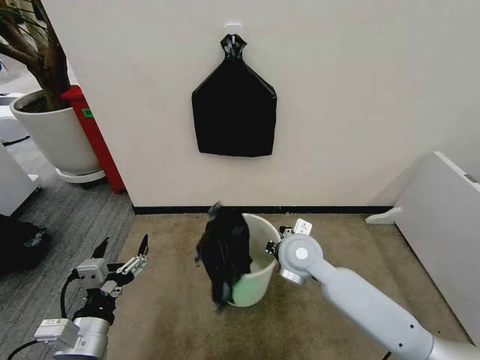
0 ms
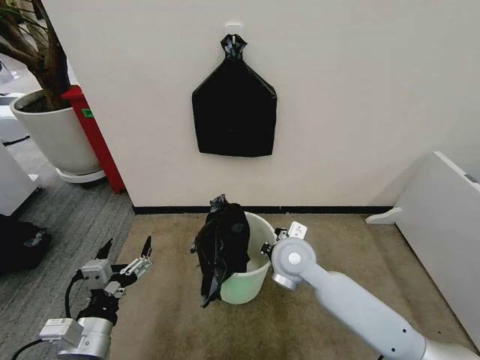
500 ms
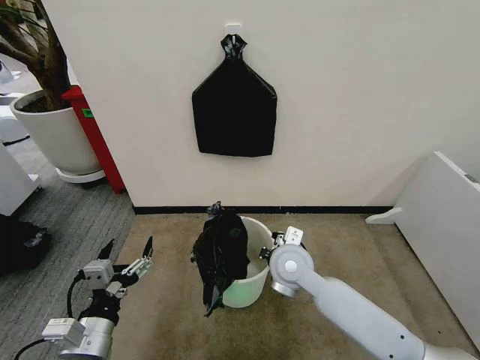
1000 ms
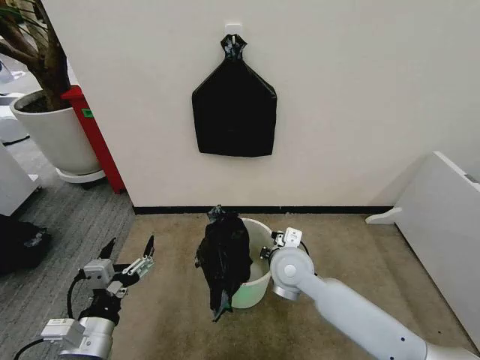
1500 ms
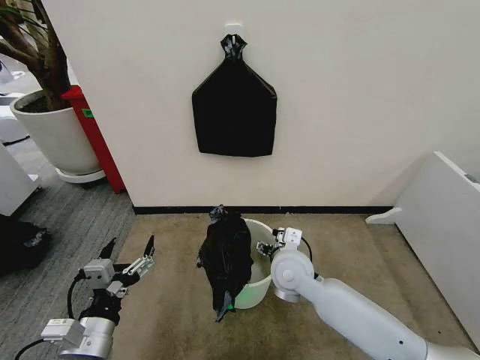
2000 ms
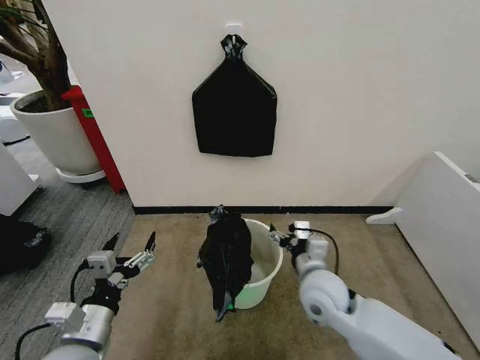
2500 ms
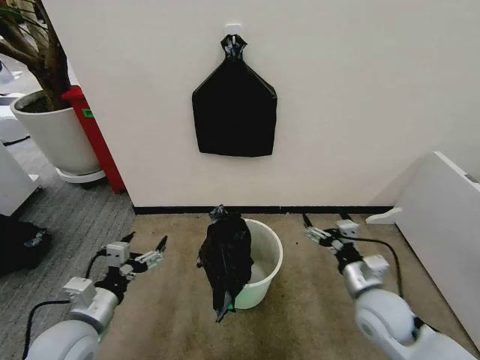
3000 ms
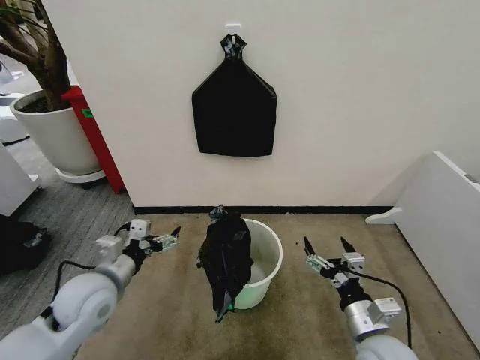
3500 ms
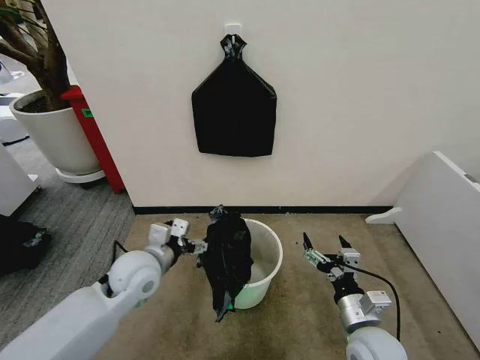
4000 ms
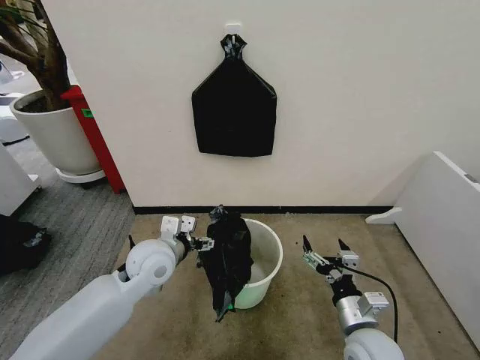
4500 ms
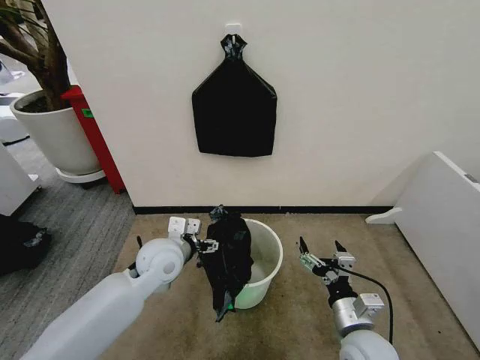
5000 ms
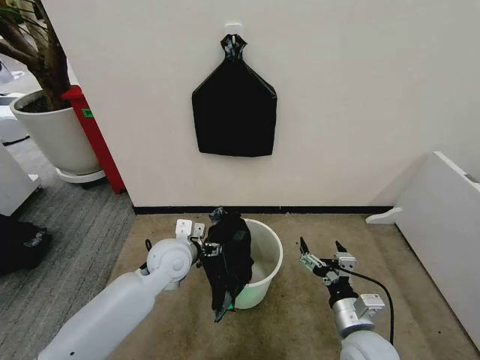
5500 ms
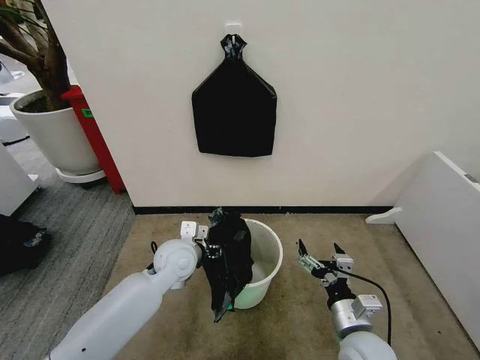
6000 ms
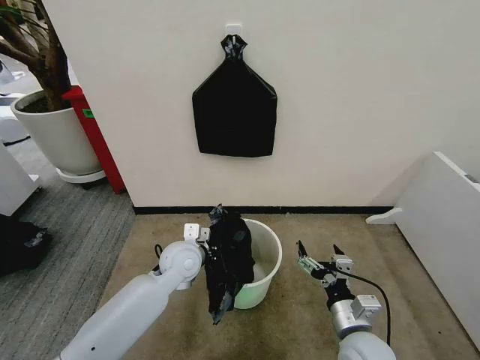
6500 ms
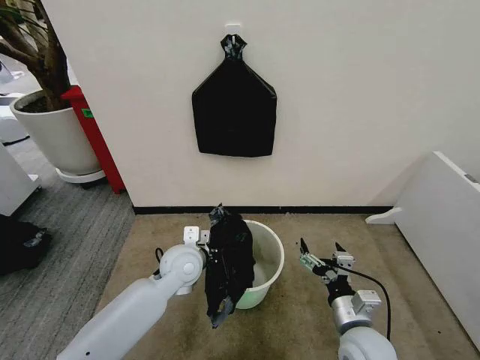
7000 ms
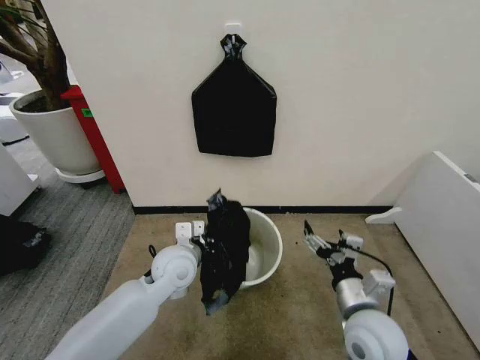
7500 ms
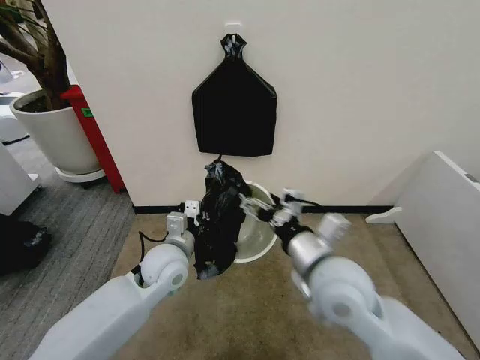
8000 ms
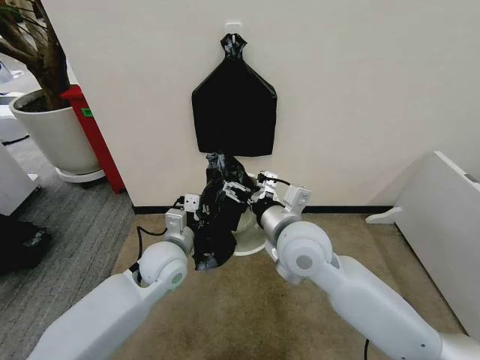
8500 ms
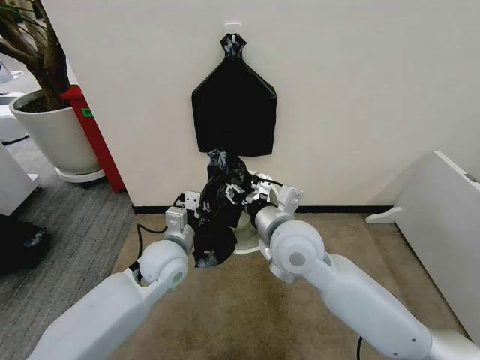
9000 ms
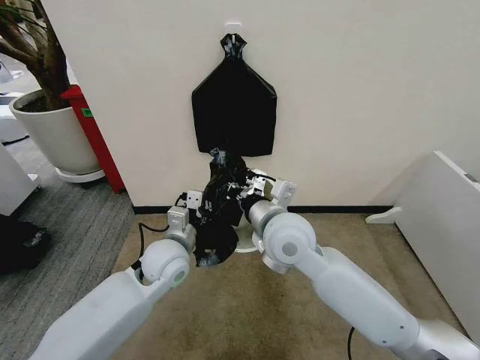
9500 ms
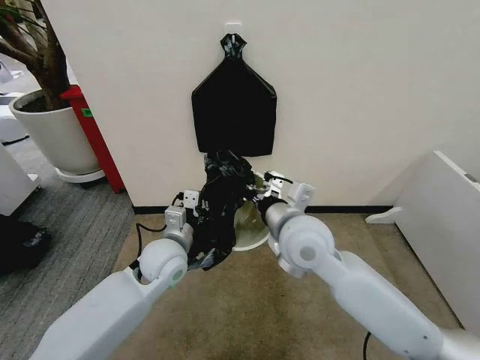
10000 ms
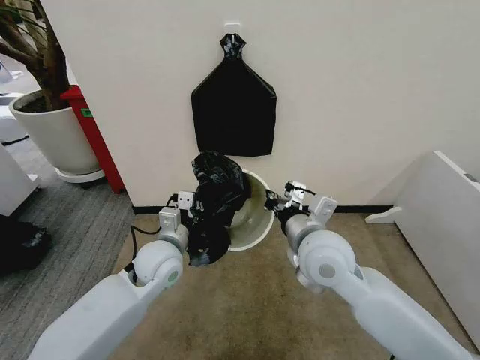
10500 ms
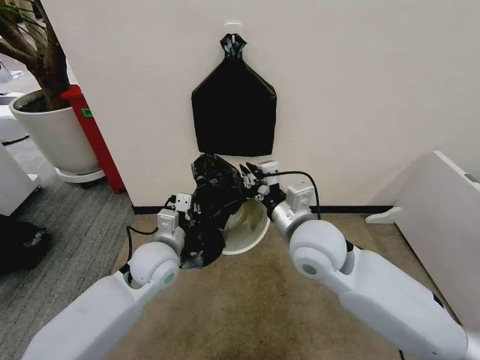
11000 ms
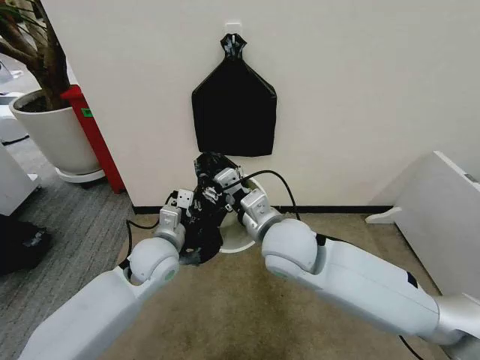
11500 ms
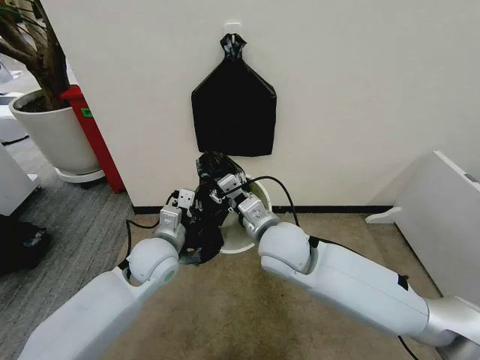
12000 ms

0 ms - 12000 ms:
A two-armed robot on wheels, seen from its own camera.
Task of the whole recording: Place the garbage bag over the trash bin.
0 ms - 2000 ms: The right gripper opens its fingers.
2000 ms - 4000 ms: The left gripper is displaced forward by roughly 20 cm. The right gripper goes roughly 20 cm backward and to the right.
4000 ms - 6000 ms: The left gripper shifts about 10 cm to the right and forward.
6000 ms - 8000 ms: The left gripper closes. Meanwhile the right gripper is displaced upward and to the left by roughly 20 cm.
8000 ms - 10000 ms: The right gripper is displaced forward by some 5 cm, and closes.
10000 ms - 12000 ms: The right gripper ends up about 5 cm from where it was, and opens up.

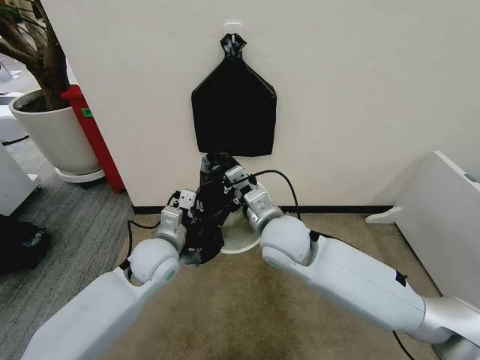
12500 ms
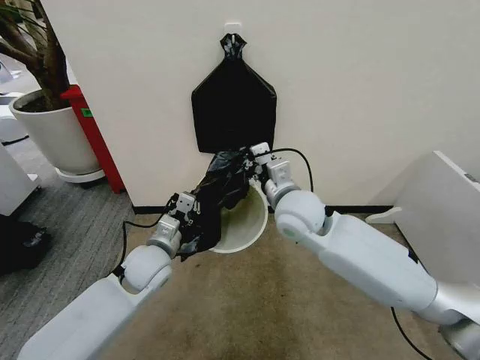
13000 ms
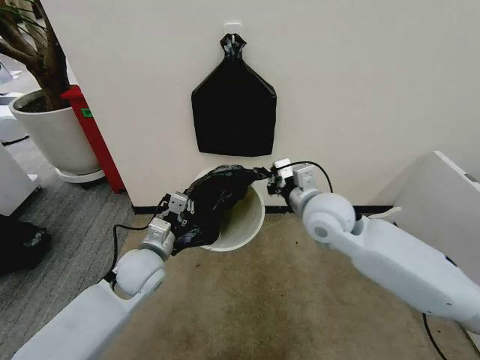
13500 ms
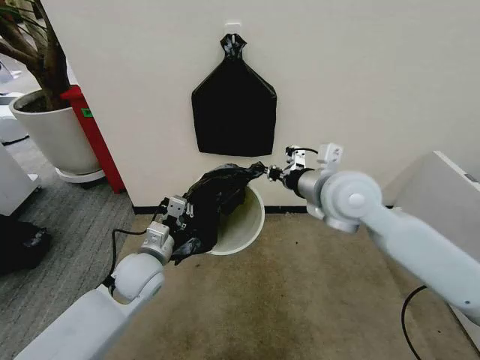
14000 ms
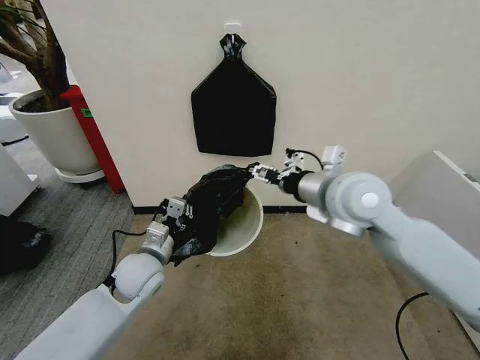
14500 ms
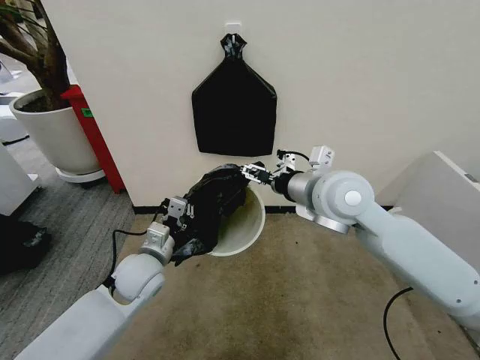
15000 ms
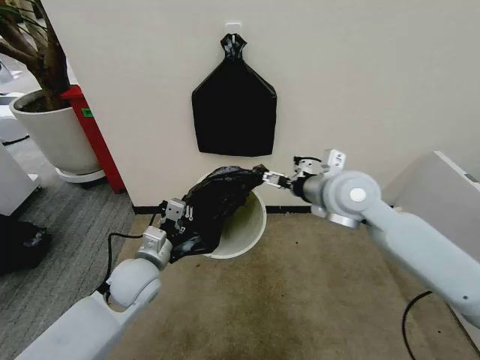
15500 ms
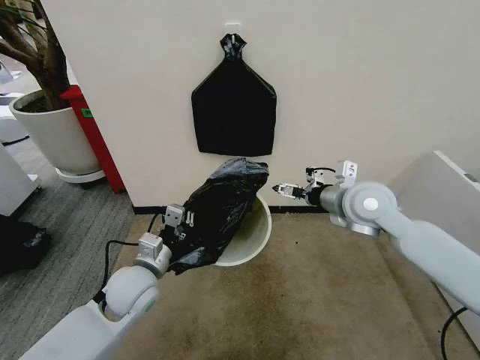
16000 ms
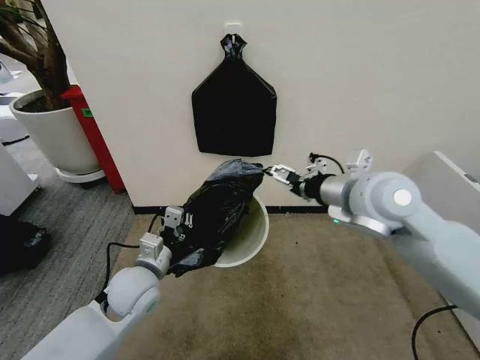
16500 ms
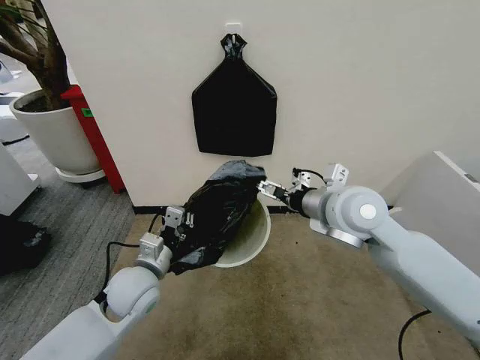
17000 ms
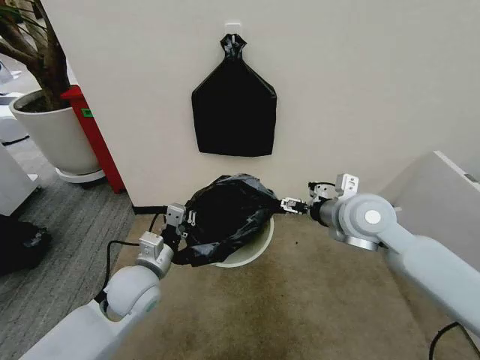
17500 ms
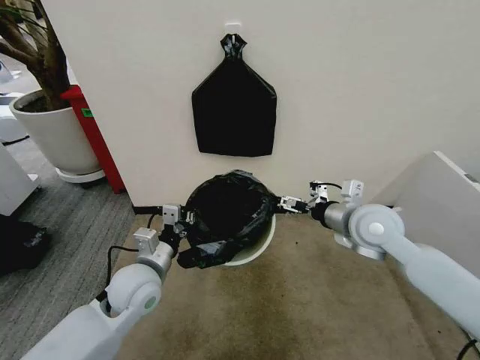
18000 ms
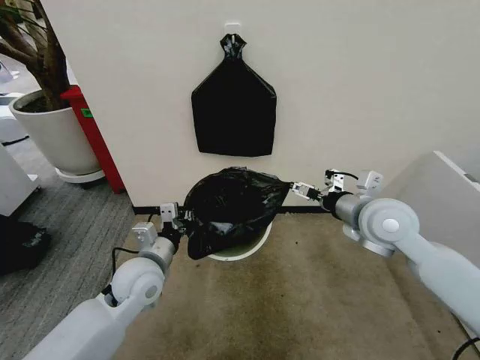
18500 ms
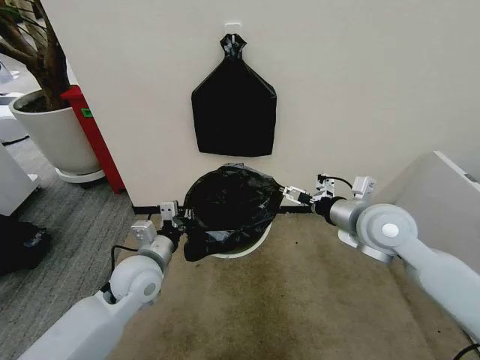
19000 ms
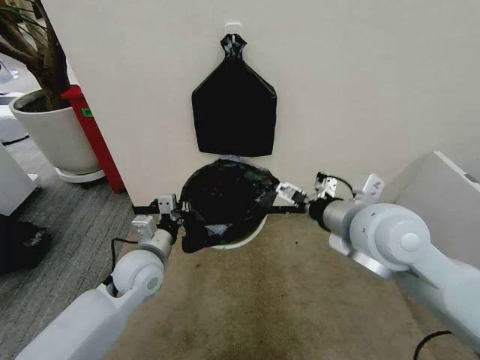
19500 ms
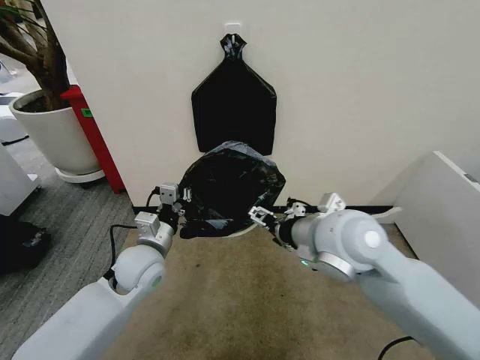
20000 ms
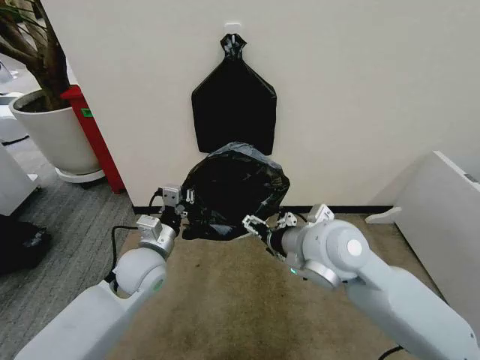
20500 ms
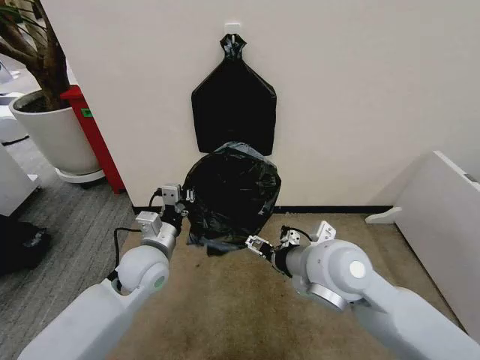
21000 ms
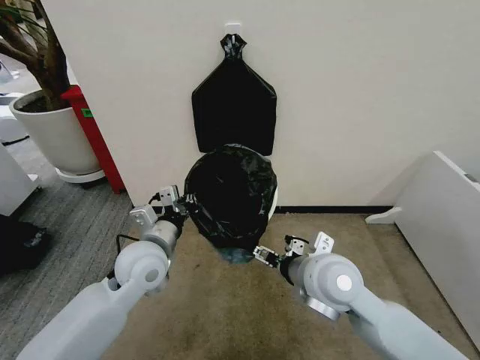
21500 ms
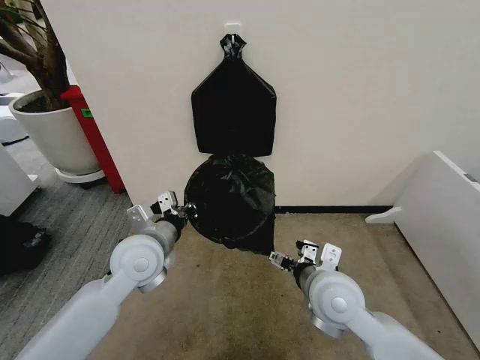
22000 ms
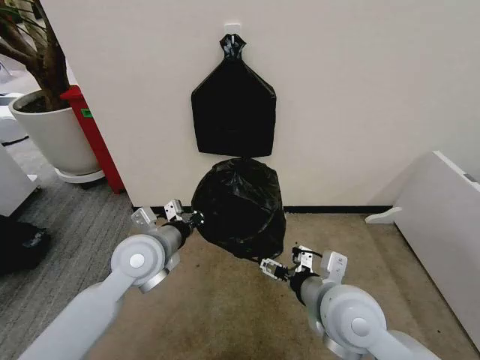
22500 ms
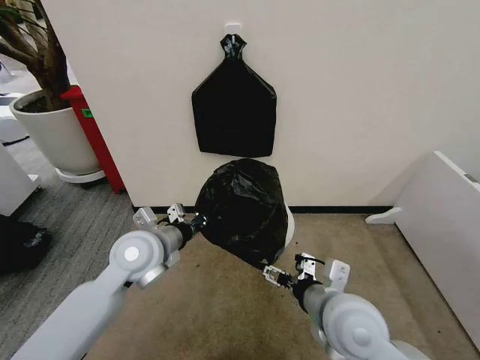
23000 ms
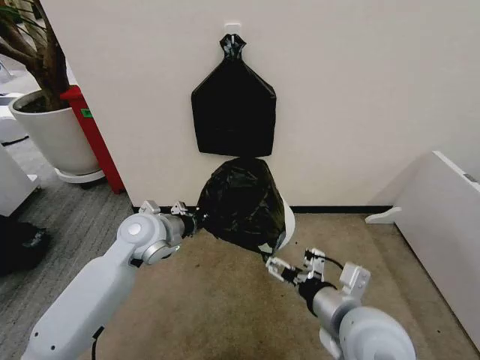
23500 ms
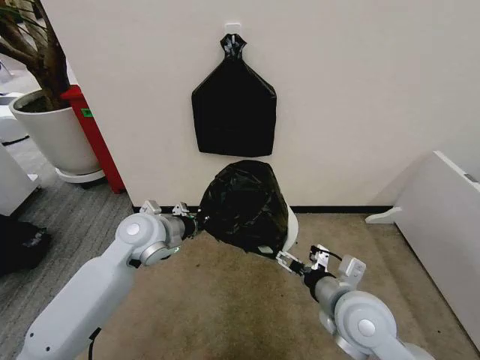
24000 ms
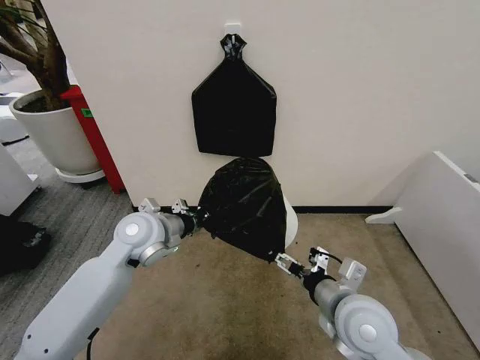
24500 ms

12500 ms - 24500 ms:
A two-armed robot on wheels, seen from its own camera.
Task of the whole recording: Place the garbage bag over the trash bin.
12500 ms - 14500 ms: The right gripper is displaced upward and to the right by roughly 15 cm, and opens its fingers.
14500 ms - 16500 ms: The right gripper opens up.
16500 ms - 18500 ms: The right gripper travels downward by some 5 cm.
18500 ms - 20500 ms: The right gripper shifts about 15 cm to the left and backward.
20500 ms - 22500 ms: The left gripper is displaced upward by approximately 5 cm. The right gripper is displaced downward and backward by some 10 cm.
22500 ms - 24500 ms: The left gripper changes place by approximately 5 cm.

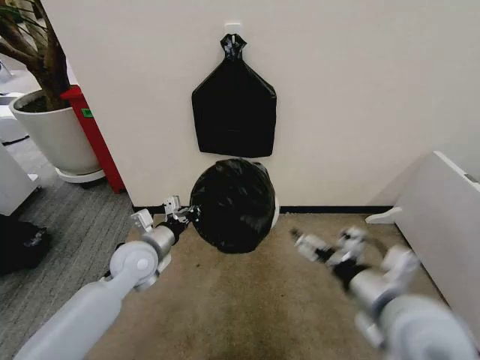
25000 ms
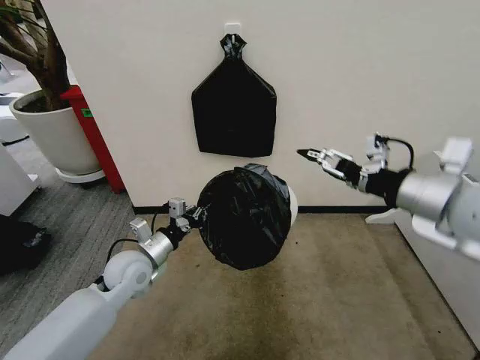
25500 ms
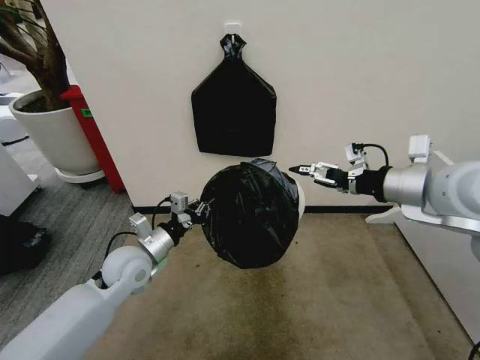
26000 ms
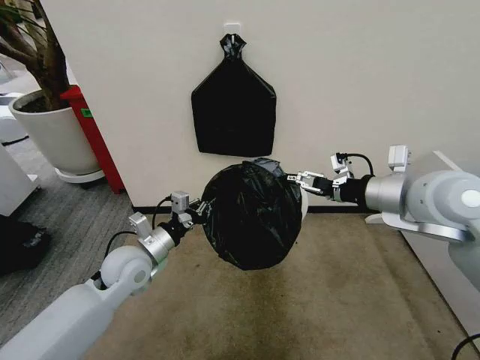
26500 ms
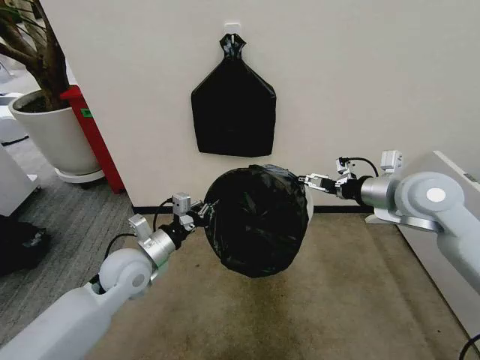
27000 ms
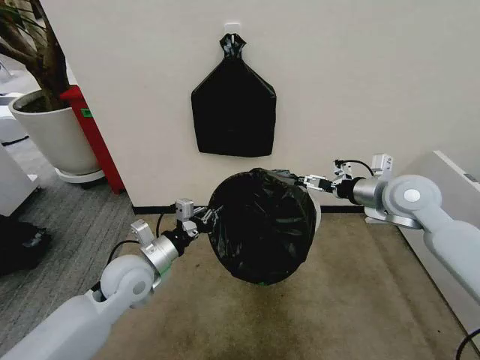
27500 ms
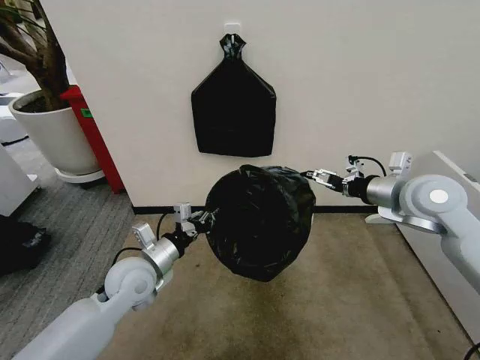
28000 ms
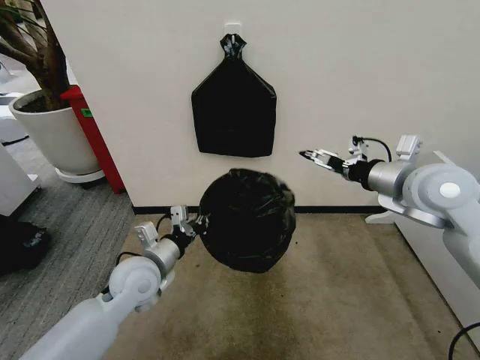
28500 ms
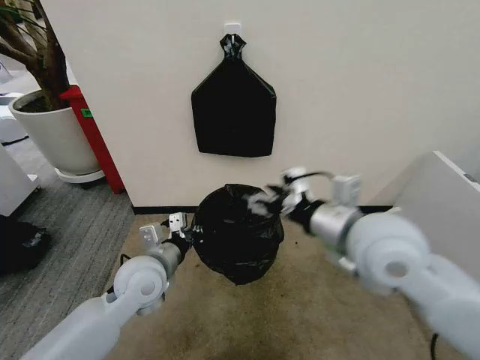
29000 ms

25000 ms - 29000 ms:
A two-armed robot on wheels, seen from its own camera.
Task of the whole recording: Place the garbage bag over the trash bin.
25000 ms - 27000 ms: The right gripper heads forward and to the right, covering approximately 20 cm.
27000 ms - 29000 ms: The right gripper is displaced to the left and backward by approximately 20 cm.
